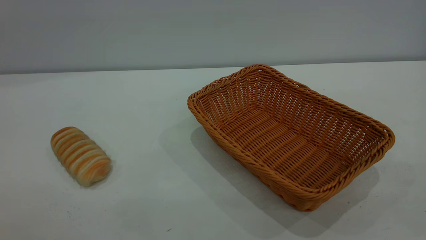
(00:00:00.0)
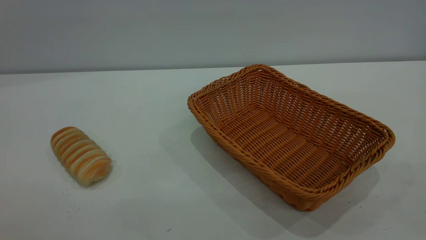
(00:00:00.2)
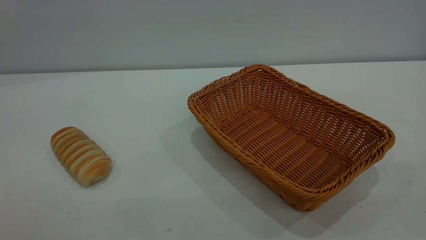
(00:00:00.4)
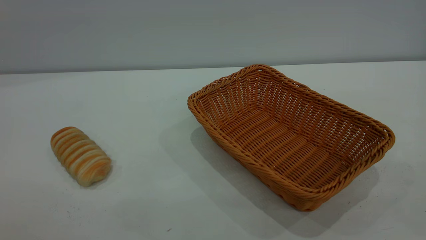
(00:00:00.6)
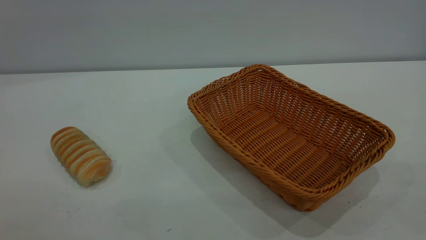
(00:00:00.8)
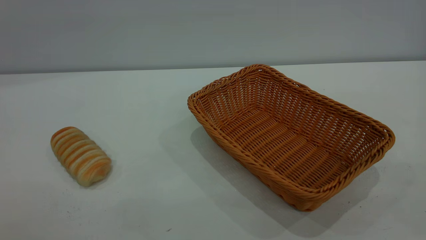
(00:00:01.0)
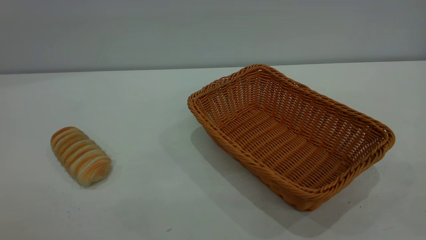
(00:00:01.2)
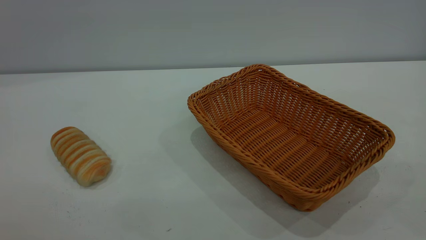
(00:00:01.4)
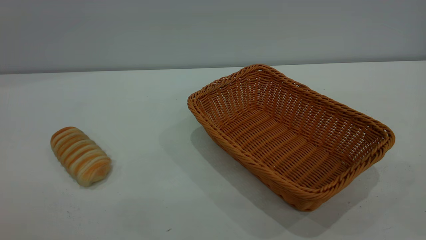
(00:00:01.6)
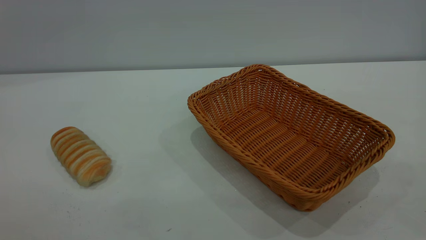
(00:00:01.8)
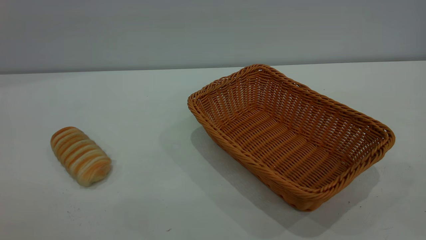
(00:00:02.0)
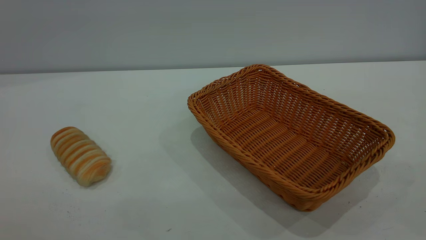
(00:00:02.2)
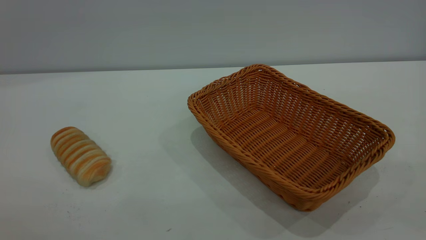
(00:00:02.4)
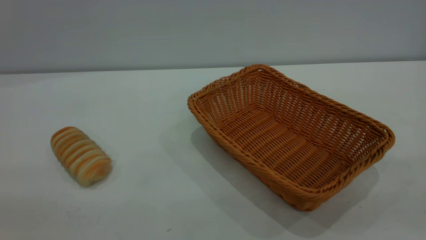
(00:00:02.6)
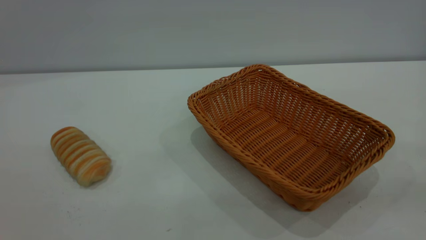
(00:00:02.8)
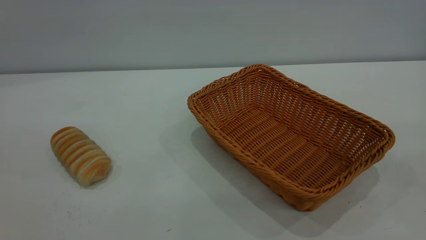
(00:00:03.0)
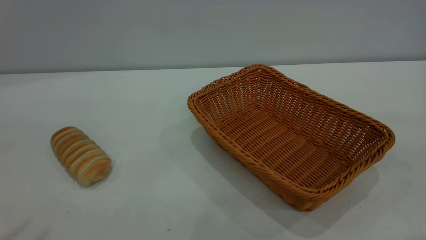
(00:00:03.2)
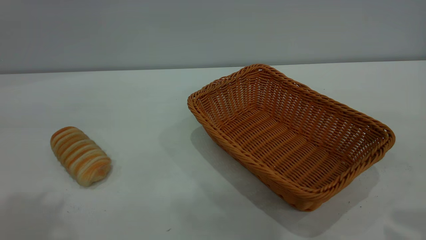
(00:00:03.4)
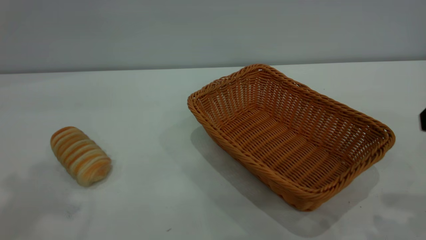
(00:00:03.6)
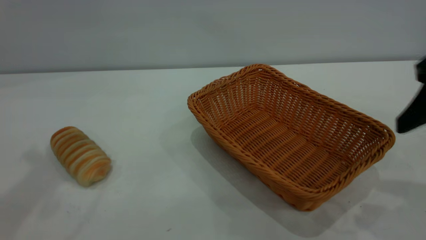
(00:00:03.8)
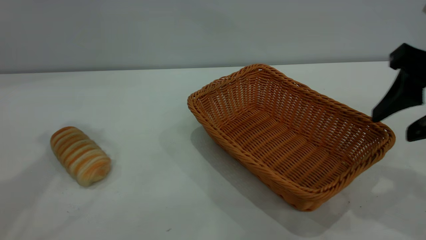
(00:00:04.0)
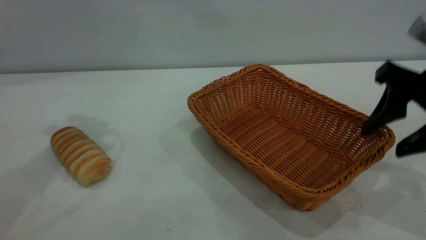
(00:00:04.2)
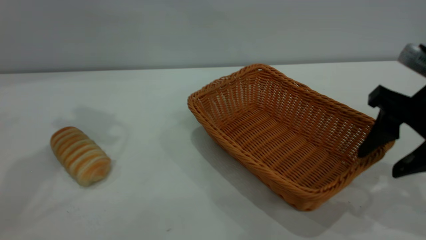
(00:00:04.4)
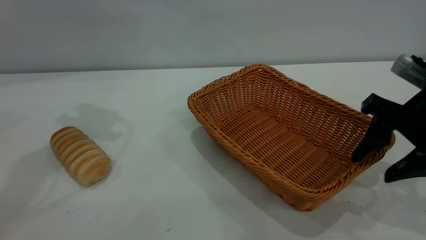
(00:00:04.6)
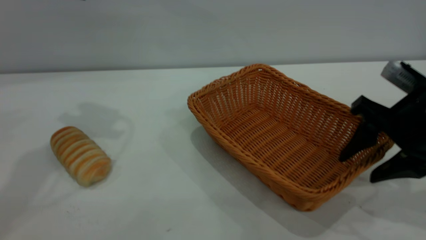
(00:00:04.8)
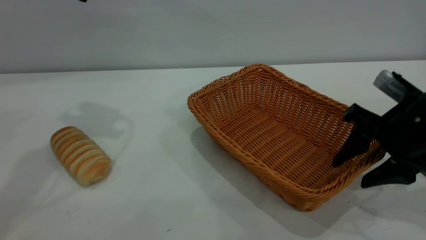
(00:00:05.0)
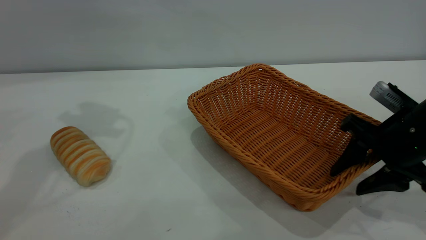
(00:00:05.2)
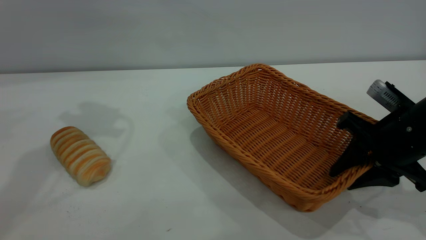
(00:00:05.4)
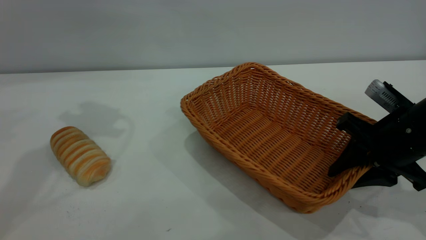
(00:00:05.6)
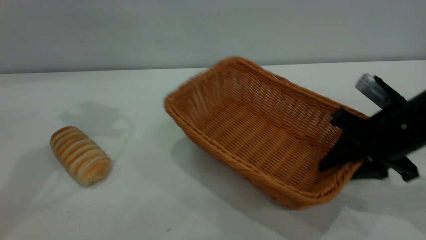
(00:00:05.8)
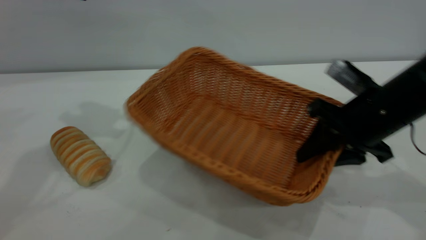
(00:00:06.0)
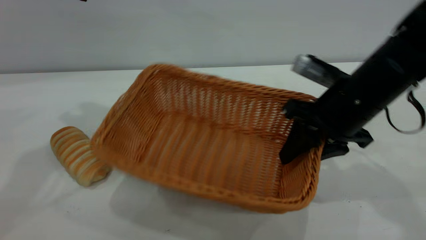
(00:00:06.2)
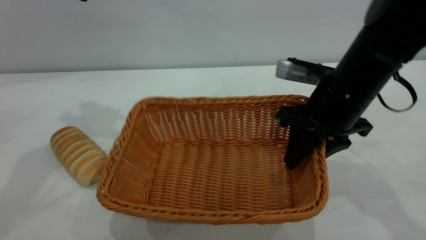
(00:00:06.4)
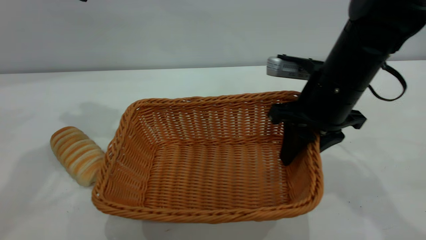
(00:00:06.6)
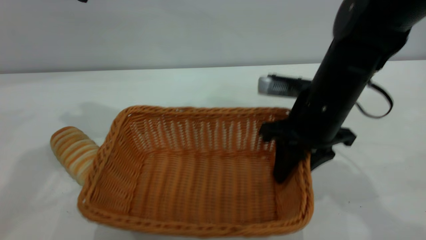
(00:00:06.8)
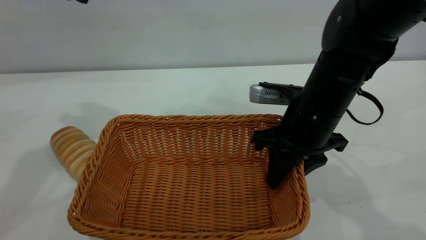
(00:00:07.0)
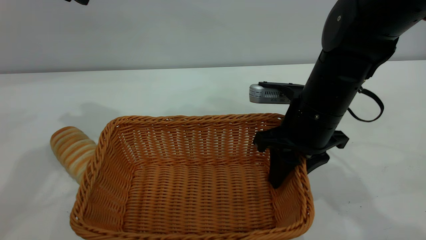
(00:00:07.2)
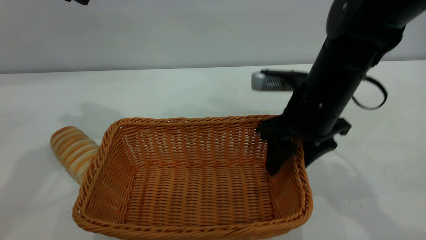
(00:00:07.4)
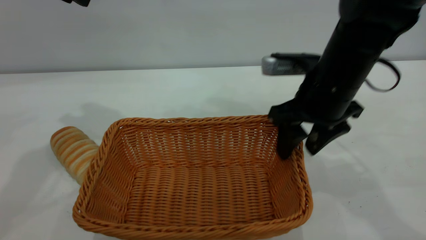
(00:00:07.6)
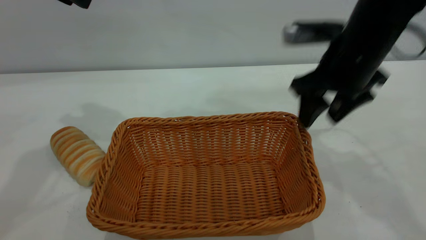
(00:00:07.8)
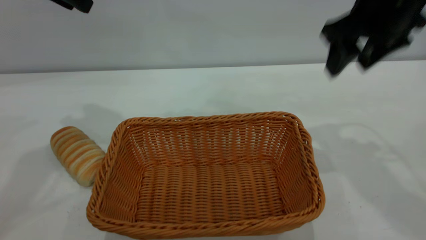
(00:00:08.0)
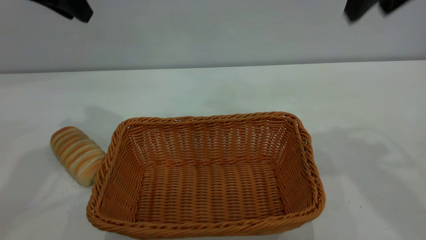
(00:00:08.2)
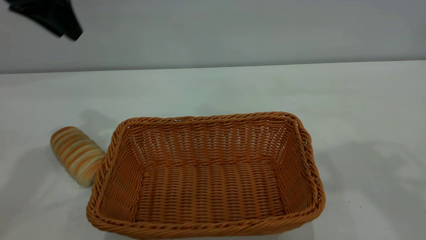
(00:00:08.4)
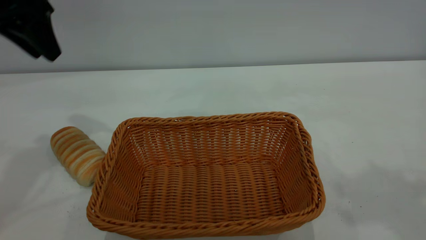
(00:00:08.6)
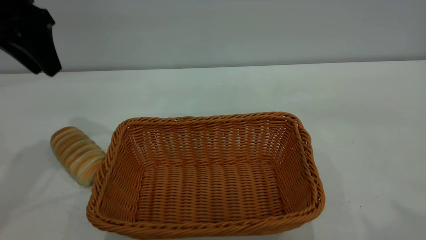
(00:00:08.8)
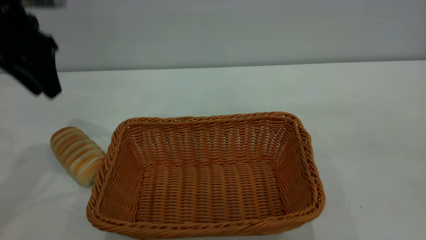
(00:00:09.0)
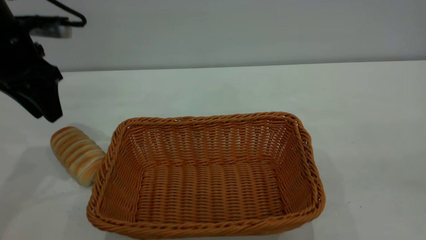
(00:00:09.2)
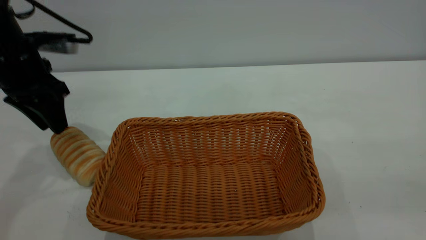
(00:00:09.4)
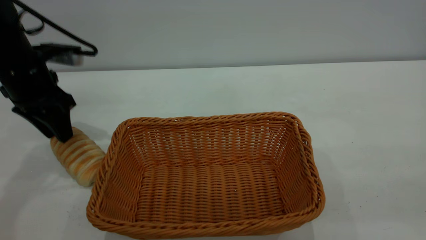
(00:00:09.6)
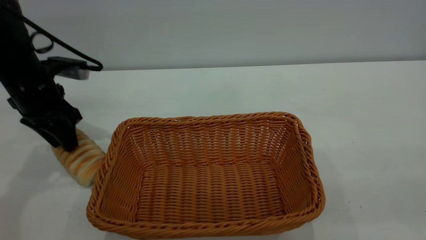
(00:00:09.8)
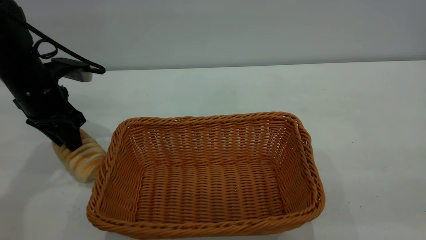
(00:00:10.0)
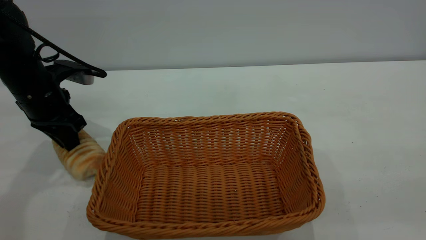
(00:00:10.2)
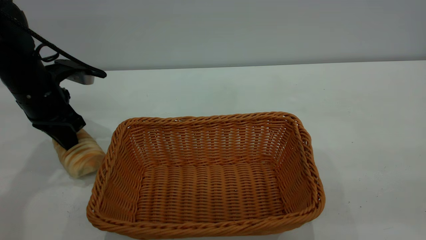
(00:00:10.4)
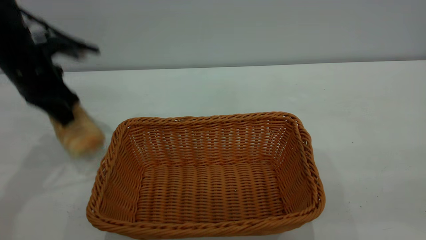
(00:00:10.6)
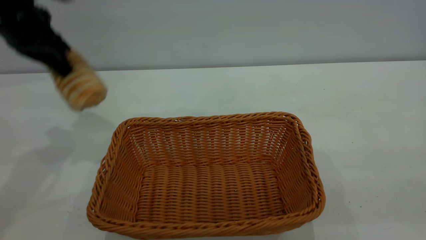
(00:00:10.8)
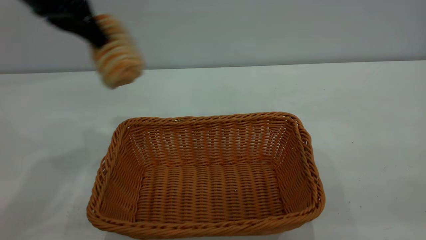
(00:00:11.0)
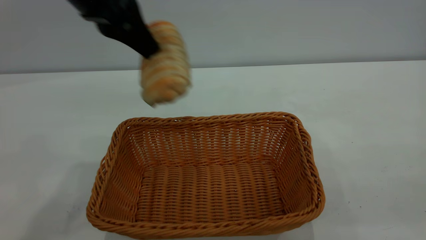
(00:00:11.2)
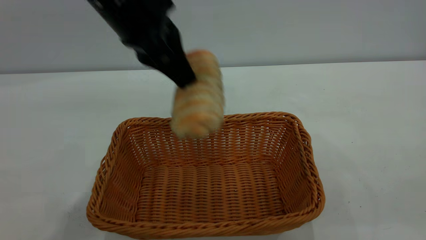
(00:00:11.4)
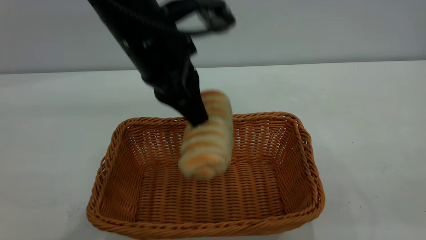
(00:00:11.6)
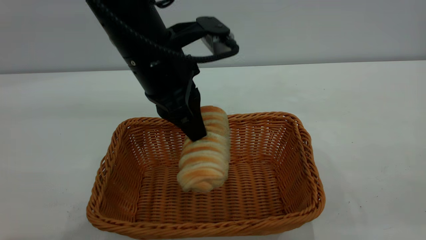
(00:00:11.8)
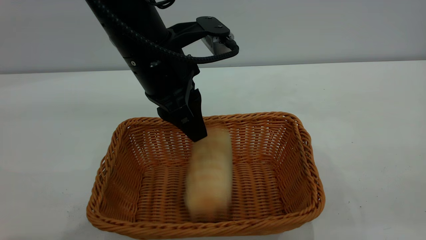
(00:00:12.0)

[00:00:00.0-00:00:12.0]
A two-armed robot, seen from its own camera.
Task of the whole recording: One hand grasps the yellow basket and places it in the middle of the table, while the other hand picks up the long bread and puts it into the yellow basket.
Step, 00:00:00.0 to 00:00:07.6: Move the basket to the center of view.
00:00:00.0 to 00:00:01.6: Neither gripper changes place.
00:00:03.0 to 00:00:04.4: The right gripper shifts approximately 25 cm downward and forward.
00:00:04.4 to 00:00:06.0: The right gripper heads to the left and forward, covering roughly 10 cm, and closes up.
00:00:06.0 to 00:00:07.6: The right gripper travels to the left by approximately 5 cm, and opens.
00:00:07.6 to 00:00:09.0: The left gripper travels downward by some 10 cm; the right gripper is displaced backward, upward and to the right by about 35 cm.
00:00:09.0 to 00:00:10.4: The left gripper is displaced downward by roughly 10 cm, and closes its fingers.
00:00:10.4 to 00:00:12.0: The left gripper moves to the right, some 20 cm, and opens.

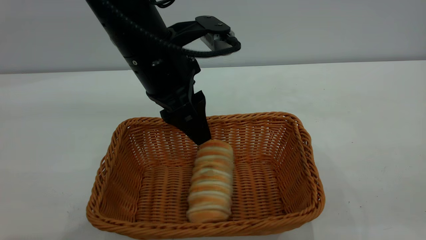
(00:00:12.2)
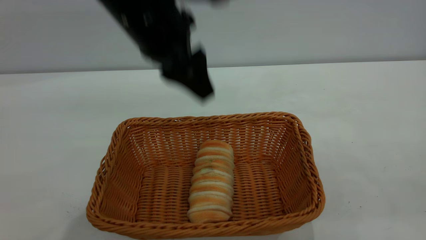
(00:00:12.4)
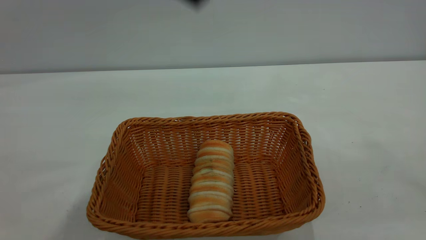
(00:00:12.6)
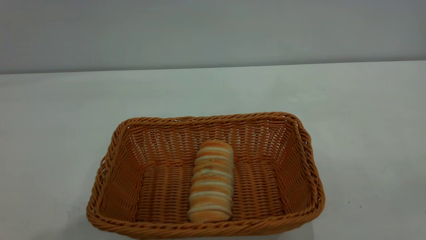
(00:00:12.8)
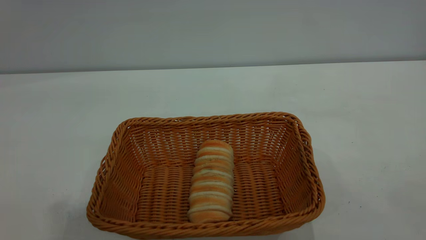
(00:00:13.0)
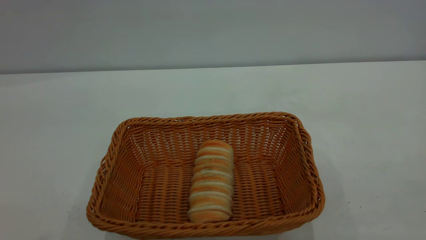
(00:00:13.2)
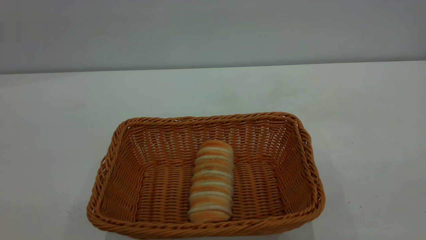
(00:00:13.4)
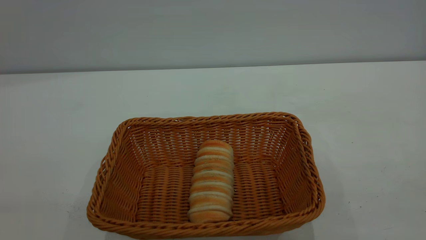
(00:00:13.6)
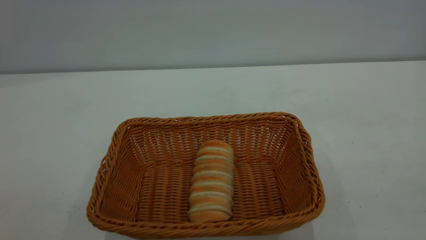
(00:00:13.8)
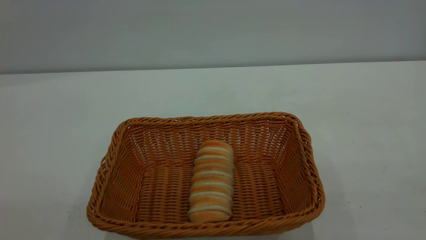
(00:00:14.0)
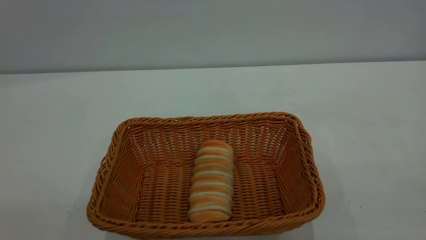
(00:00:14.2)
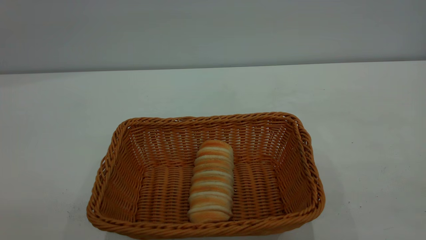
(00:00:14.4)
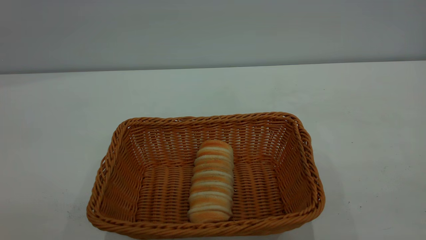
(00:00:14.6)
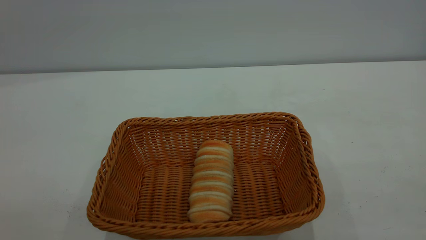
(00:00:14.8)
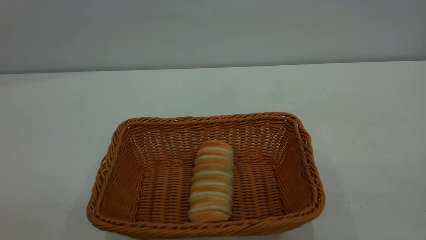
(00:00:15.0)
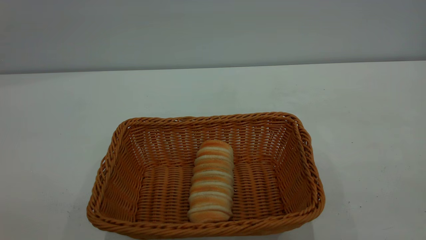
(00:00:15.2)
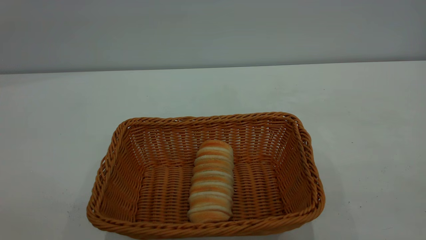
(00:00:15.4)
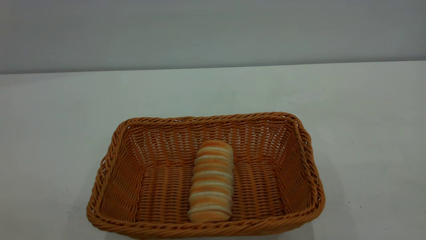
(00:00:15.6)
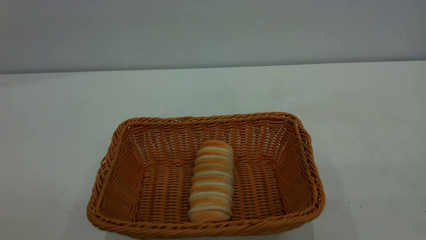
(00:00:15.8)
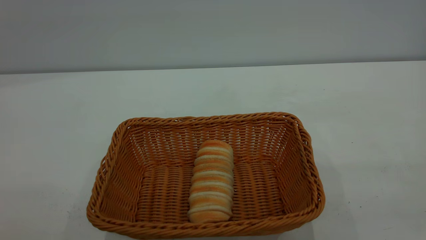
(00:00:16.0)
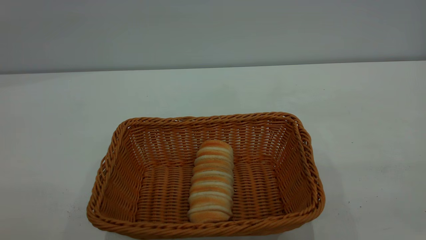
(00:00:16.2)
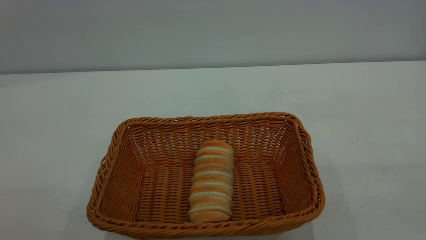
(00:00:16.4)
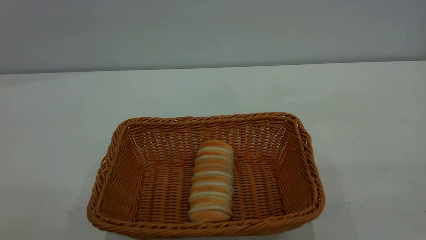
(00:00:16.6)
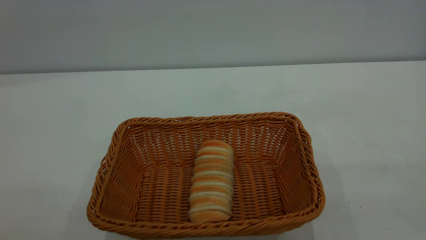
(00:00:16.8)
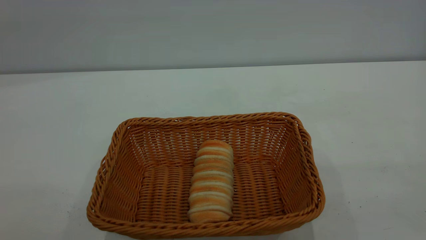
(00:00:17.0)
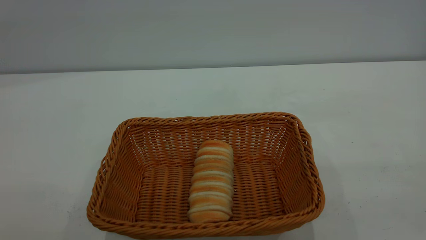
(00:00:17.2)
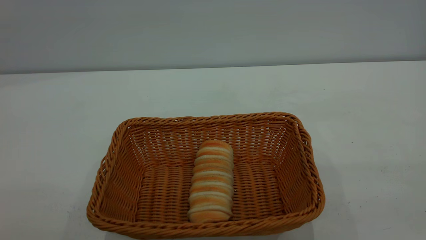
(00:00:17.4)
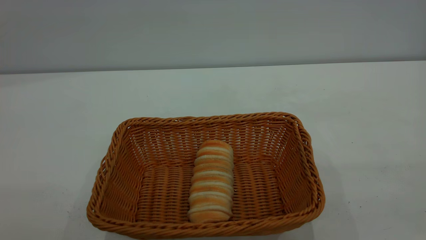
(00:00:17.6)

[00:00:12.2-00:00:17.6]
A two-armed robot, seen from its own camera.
Task of the whole recording: One hand grasps the yellow basket and places it in the middle of the table, while the other hand picks up the long bread and puts it into the yellow basket.
00:00:12.2 to 00:00:13.6: The left gripper goes approximately 50 cm backward, to the left and upward.
00:00:16.2 to 00:00:17.6: The two grippers keep their place.
